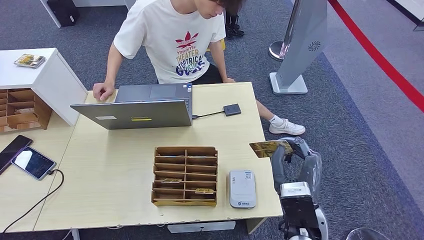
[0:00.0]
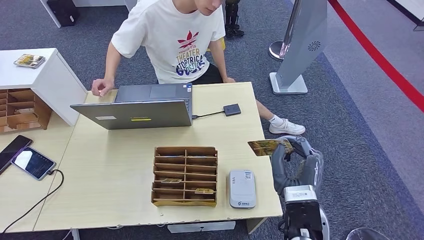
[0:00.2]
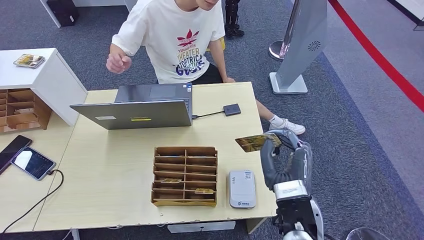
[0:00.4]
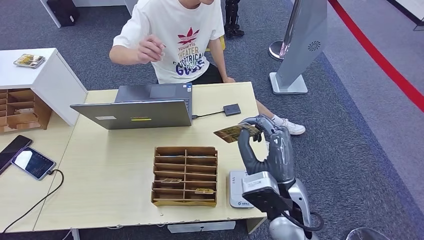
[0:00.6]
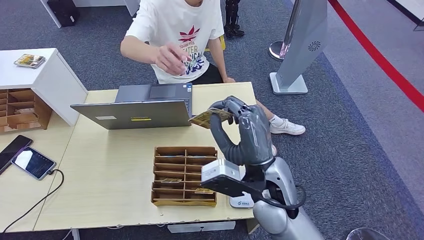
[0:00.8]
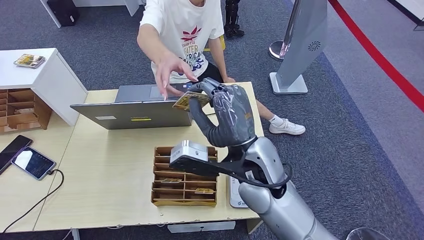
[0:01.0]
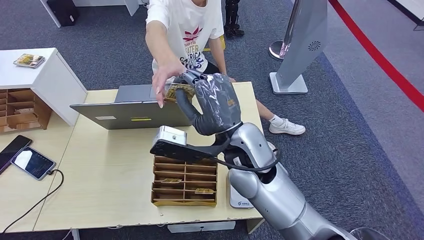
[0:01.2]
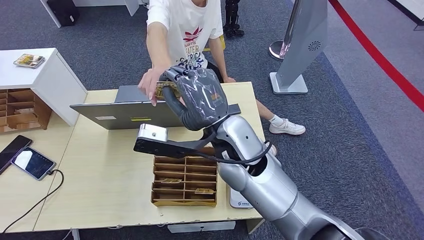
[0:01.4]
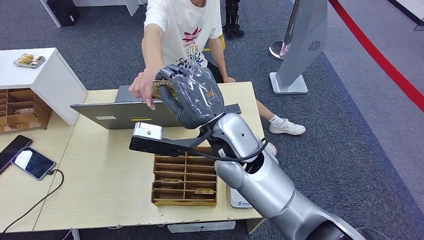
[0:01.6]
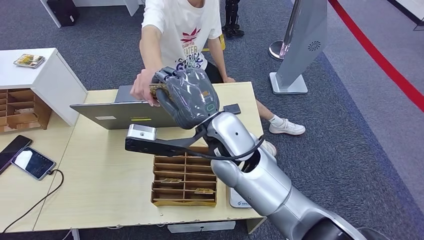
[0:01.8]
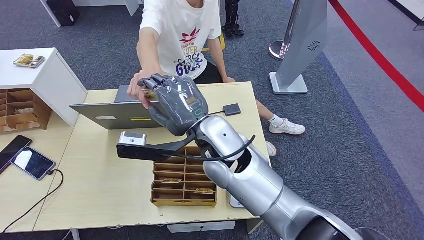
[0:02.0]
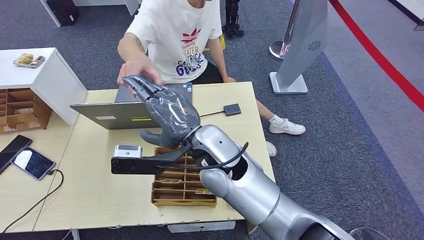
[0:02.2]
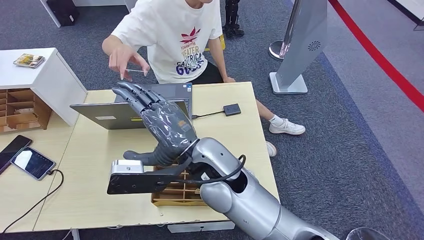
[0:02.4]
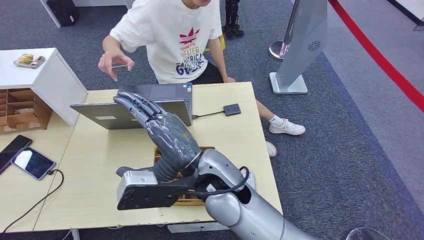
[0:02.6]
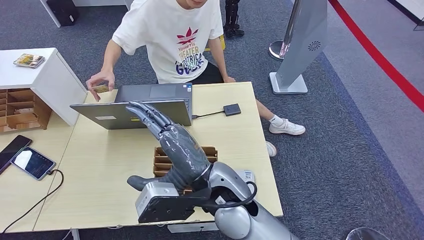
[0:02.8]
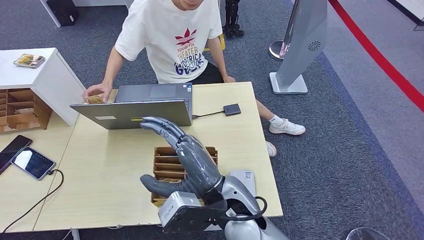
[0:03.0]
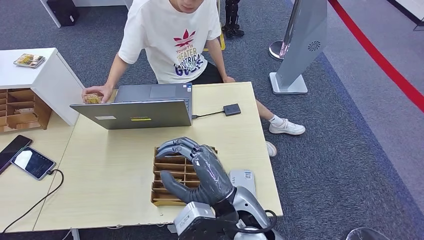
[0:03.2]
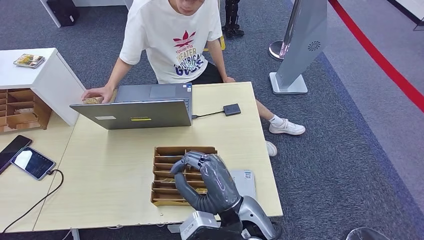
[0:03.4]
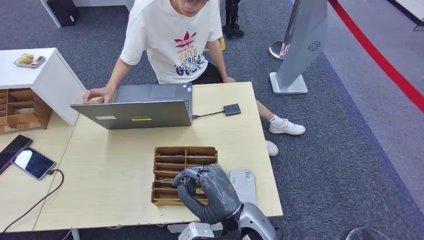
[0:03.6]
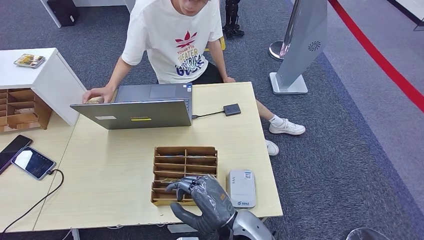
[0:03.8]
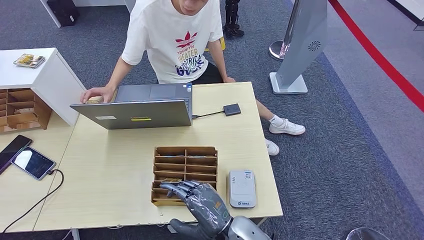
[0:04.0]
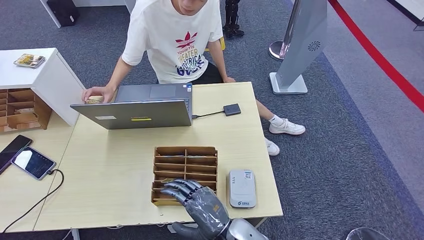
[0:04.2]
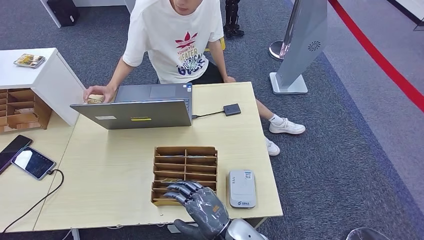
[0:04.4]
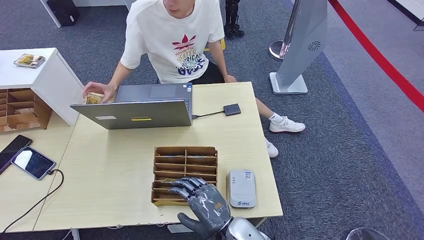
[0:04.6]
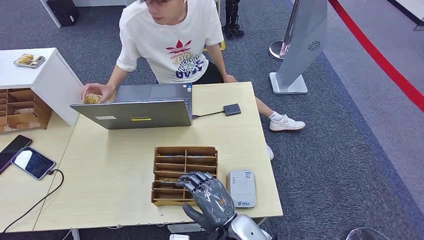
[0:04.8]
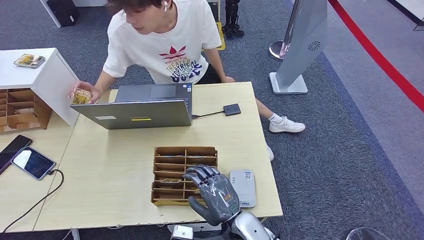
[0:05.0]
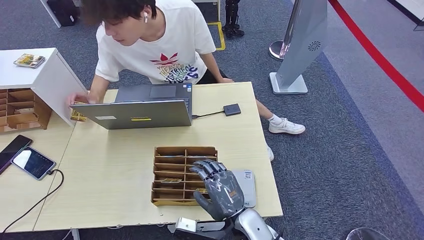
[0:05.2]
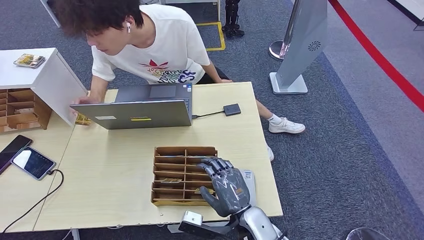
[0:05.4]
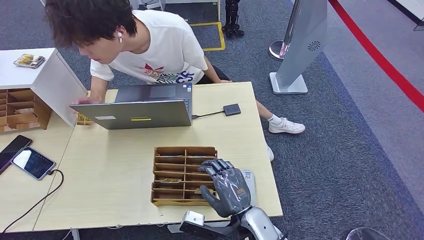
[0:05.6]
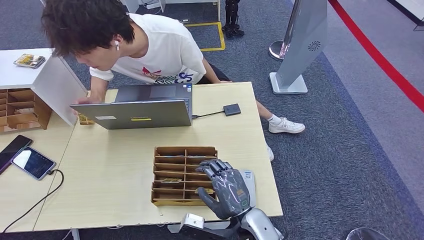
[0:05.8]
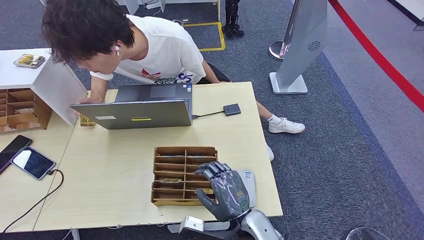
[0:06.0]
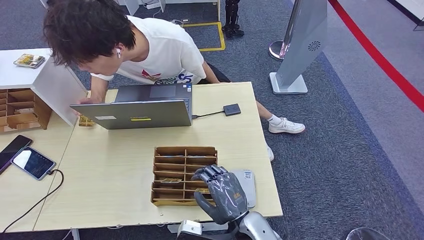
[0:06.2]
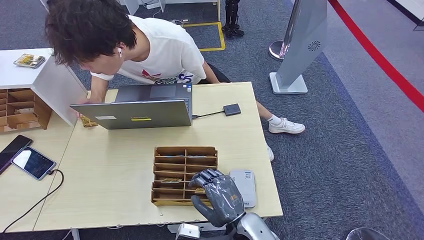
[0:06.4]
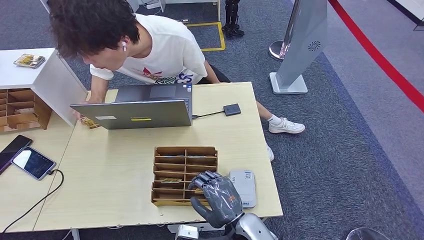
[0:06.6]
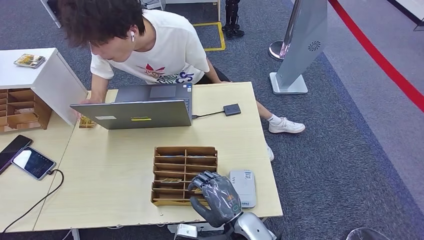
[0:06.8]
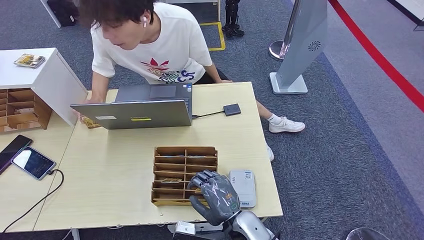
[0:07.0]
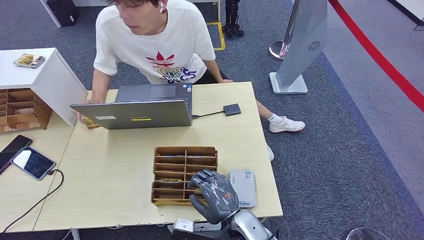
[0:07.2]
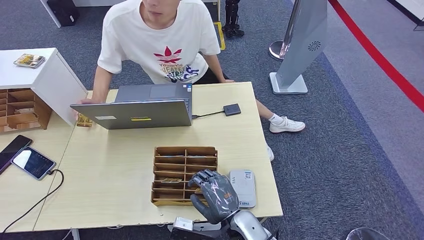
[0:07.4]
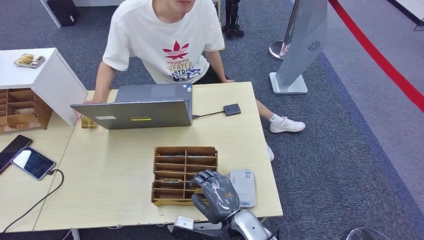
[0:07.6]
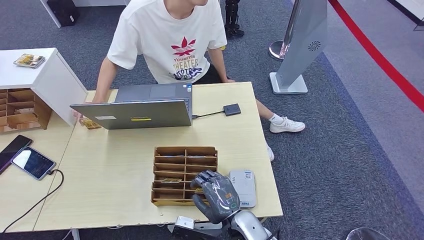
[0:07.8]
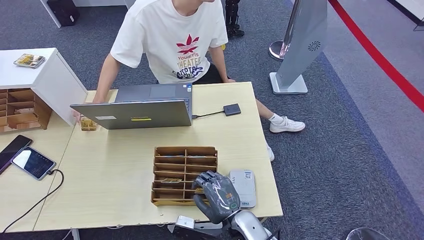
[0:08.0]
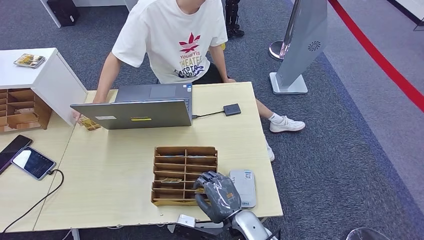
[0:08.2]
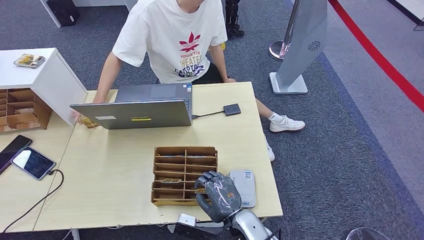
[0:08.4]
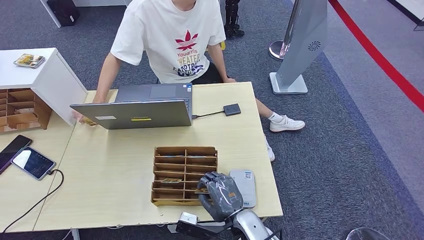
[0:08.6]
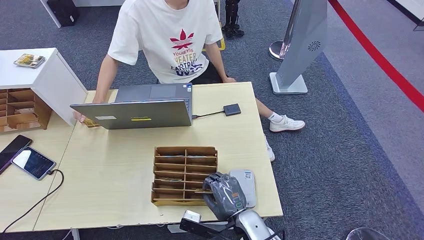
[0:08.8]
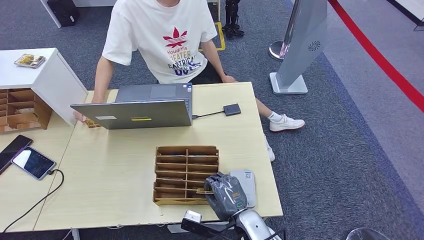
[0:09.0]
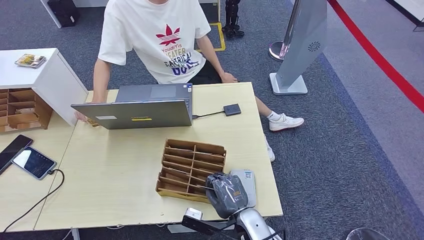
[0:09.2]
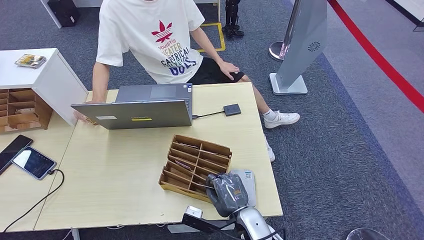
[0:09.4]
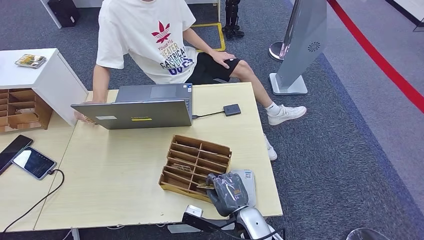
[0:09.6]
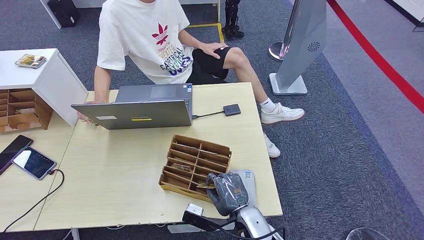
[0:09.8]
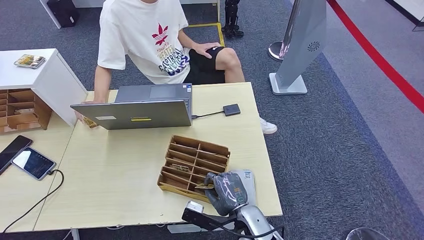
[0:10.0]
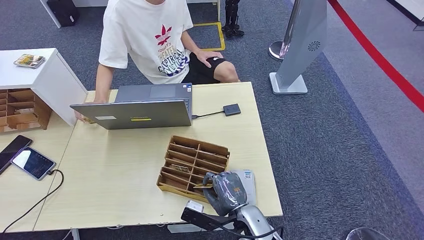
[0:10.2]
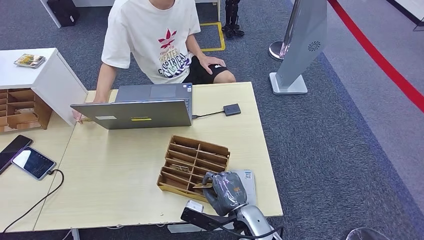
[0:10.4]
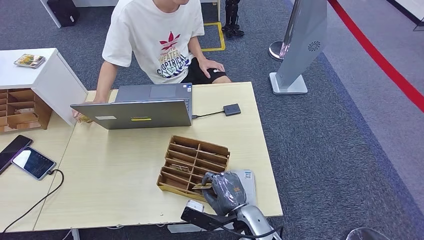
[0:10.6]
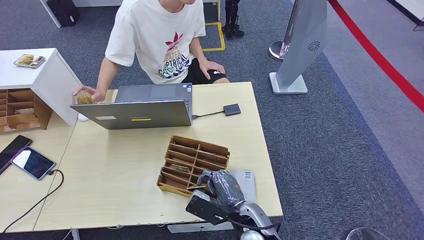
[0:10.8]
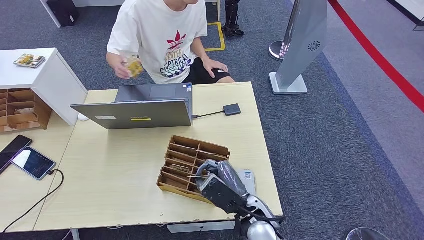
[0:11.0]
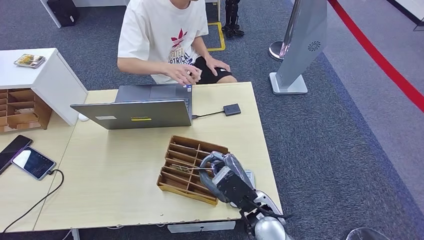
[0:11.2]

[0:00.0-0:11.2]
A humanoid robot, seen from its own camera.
Step, 0:00.0 to 0:02.8: Hand the ID card to the person.
Step, 0:03.2 to 0:10.0: Pick up the room key from the key card box.
0:00.0 to 0:01.6: The right hand goes about 25 cm to the left, upward and forward.
0:01.6 to 0:03.2: The right hand shifts approximately 15 cm backward and downward.
0:03.2 to 0:04.8: The right hand travels downward by about 10 cm.
0:04.8 to 0:08.0: The hands stay close to where they were, moving slightly.
0:08.0 to 0:09.6: The hands stay close to where they were, moving slightly.
0:09.6 to 0:11.2: The right hand moves upward, roughly 10 cm.

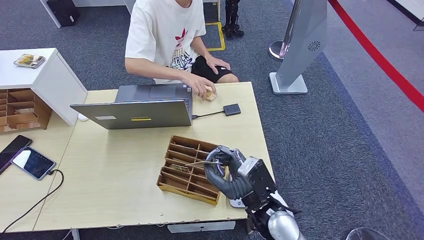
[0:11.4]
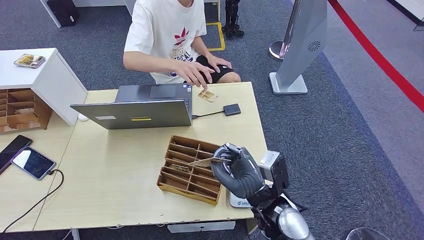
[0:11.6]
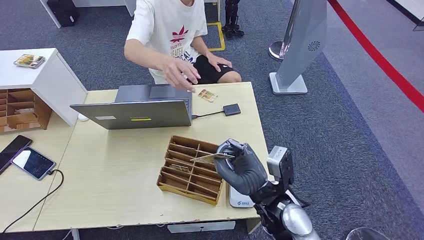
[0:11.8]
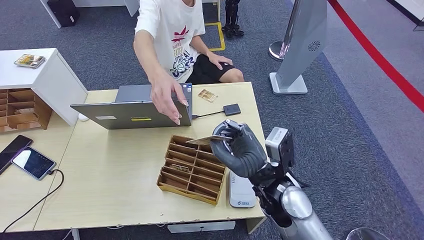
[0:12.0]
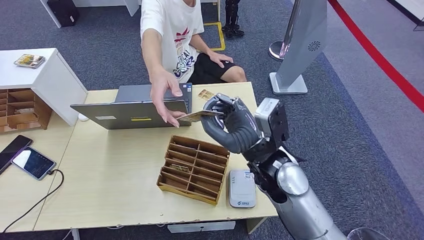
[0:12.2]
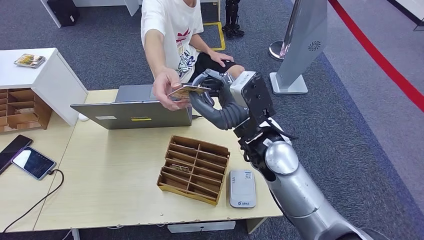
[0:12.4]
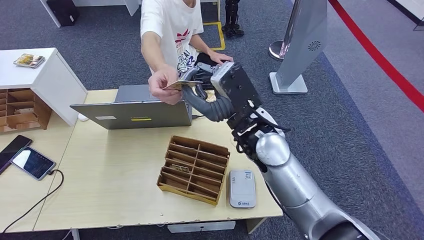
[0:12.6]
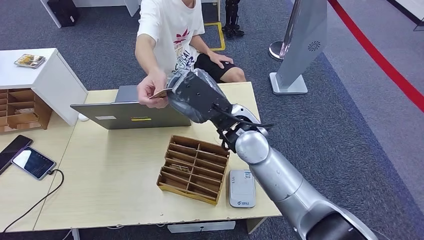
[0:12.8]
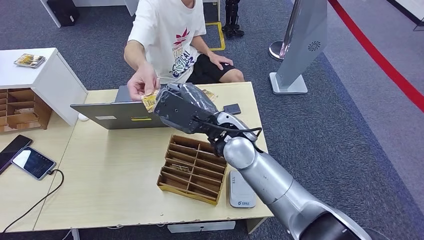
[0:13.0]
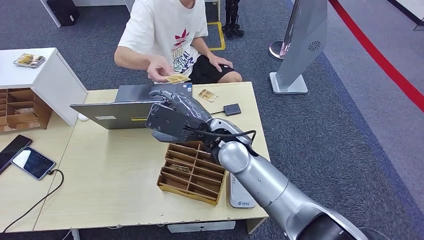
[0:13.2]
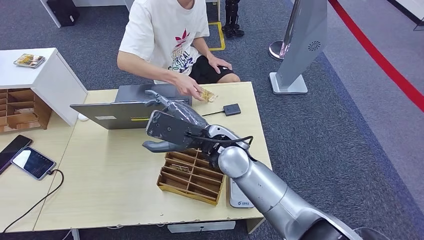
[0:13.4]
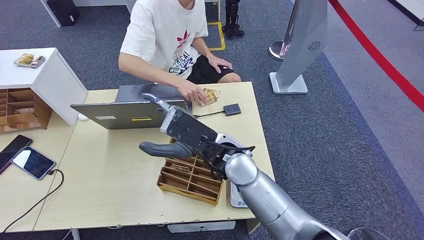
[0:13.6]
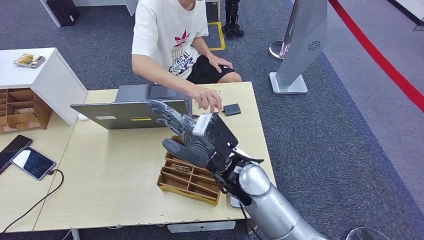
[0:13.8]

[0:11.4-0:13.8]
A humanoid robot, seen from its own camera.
Step, 0:11.4 to 0:13.8: Hand the room key to the person.
0:11.4 to 0:12.6: The right hand shifts some 20 cm upward and forward.
0:12.6 to 0:13.8: The right hand travels downward by about 5 cm.
